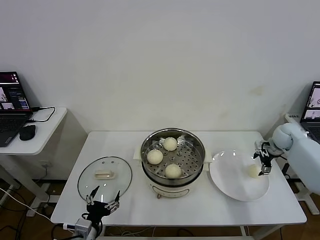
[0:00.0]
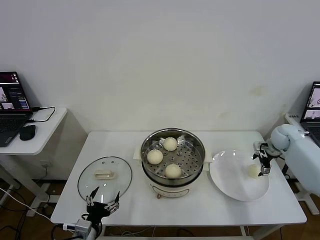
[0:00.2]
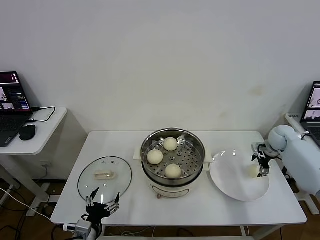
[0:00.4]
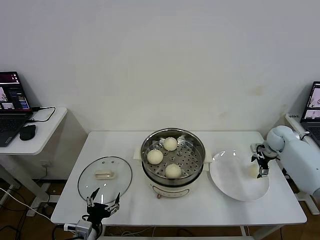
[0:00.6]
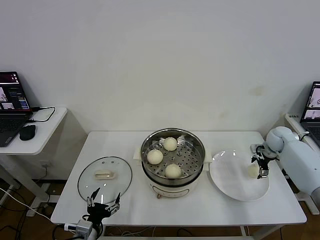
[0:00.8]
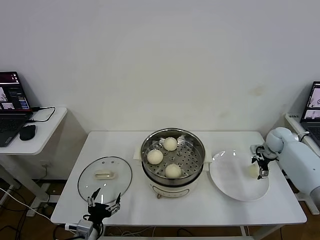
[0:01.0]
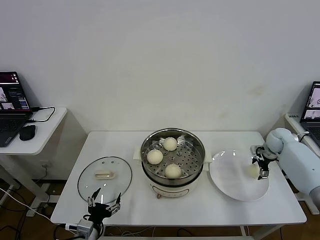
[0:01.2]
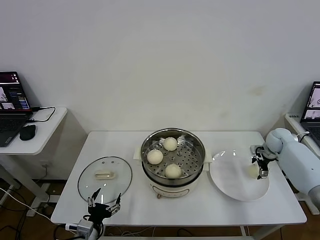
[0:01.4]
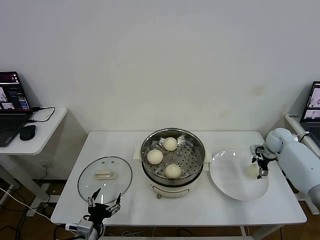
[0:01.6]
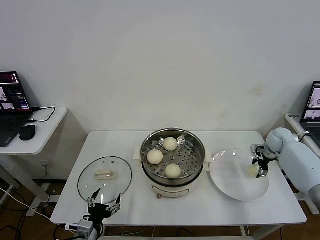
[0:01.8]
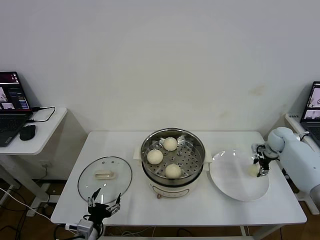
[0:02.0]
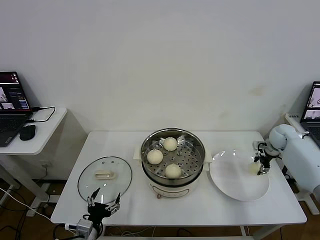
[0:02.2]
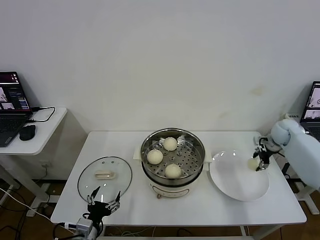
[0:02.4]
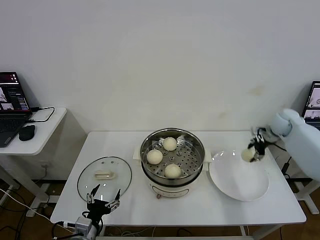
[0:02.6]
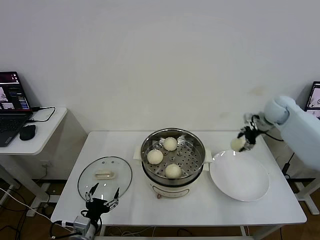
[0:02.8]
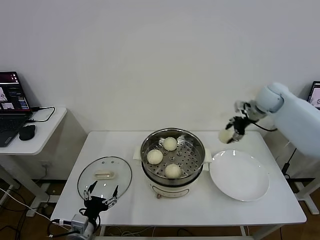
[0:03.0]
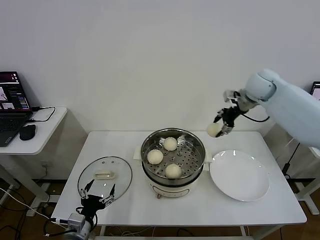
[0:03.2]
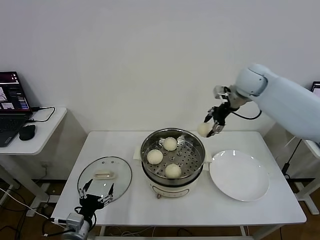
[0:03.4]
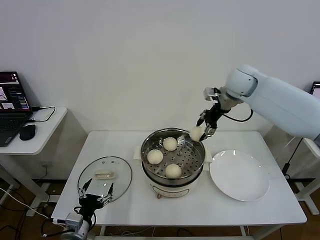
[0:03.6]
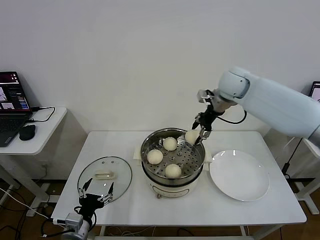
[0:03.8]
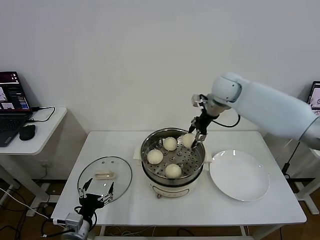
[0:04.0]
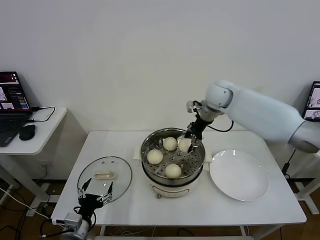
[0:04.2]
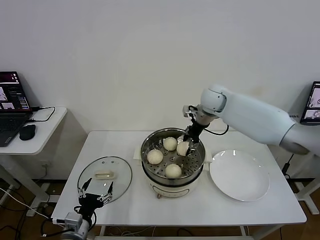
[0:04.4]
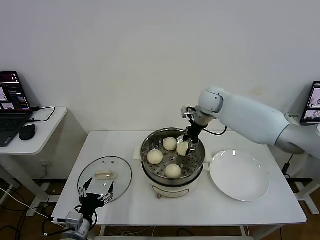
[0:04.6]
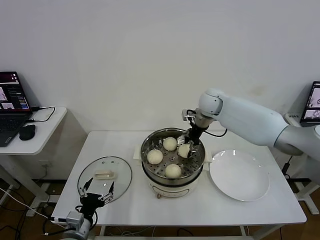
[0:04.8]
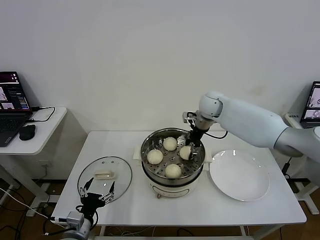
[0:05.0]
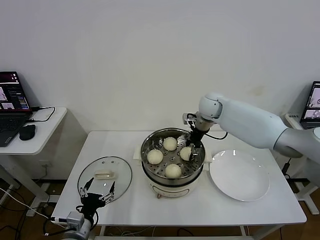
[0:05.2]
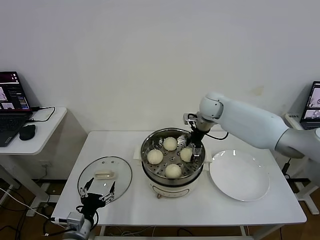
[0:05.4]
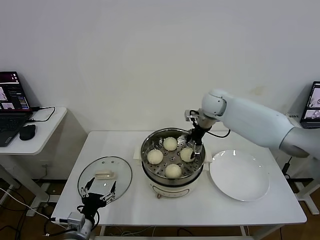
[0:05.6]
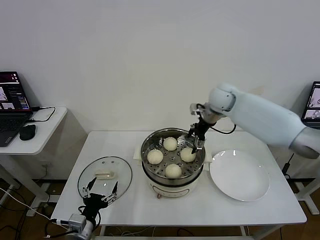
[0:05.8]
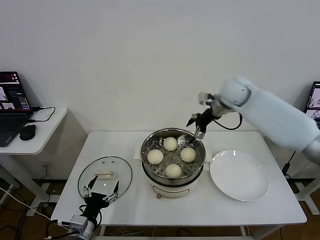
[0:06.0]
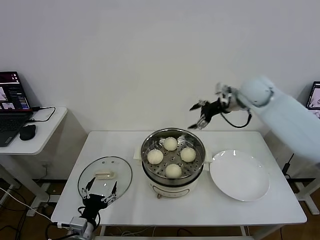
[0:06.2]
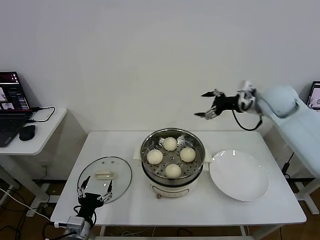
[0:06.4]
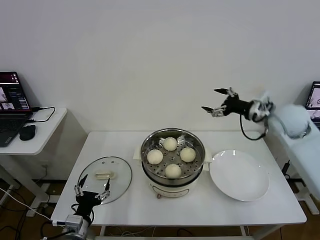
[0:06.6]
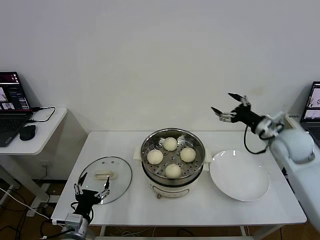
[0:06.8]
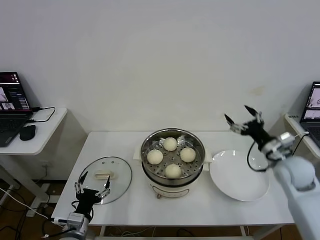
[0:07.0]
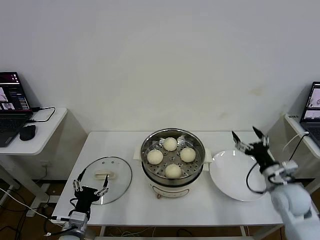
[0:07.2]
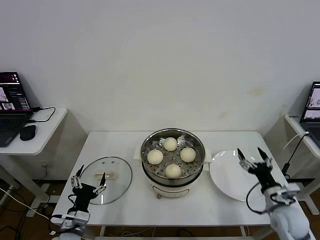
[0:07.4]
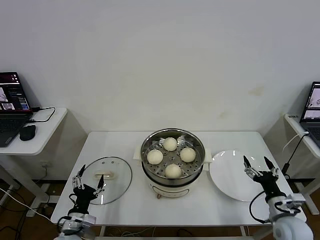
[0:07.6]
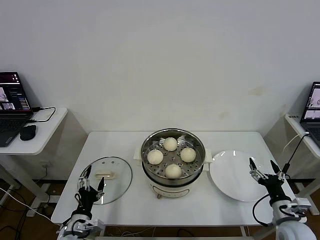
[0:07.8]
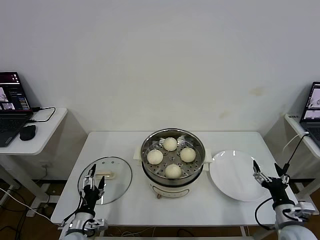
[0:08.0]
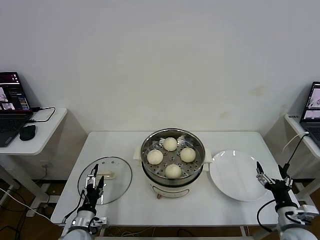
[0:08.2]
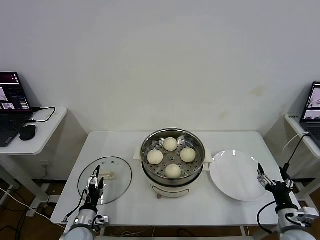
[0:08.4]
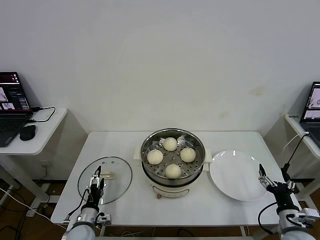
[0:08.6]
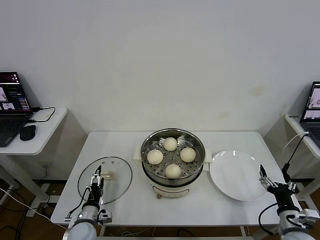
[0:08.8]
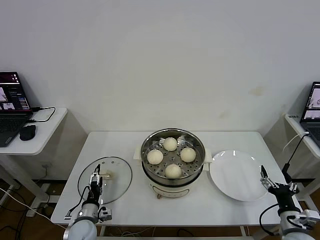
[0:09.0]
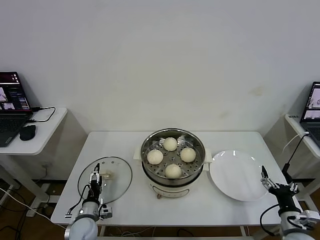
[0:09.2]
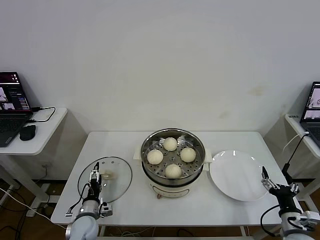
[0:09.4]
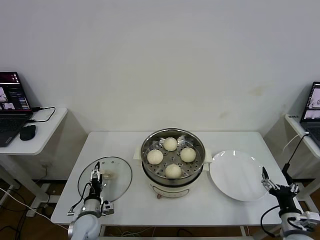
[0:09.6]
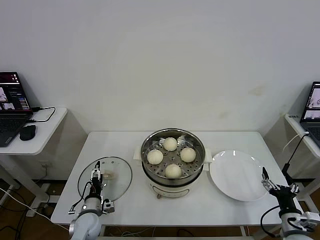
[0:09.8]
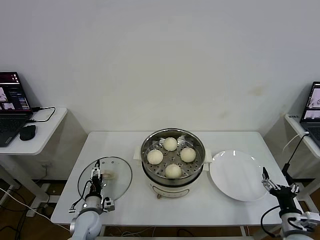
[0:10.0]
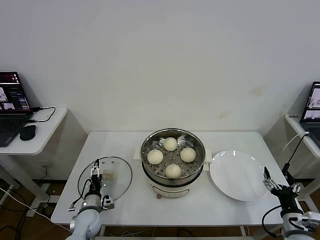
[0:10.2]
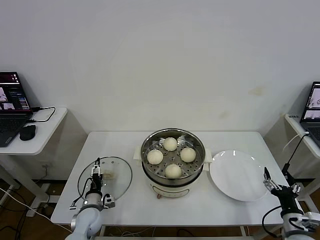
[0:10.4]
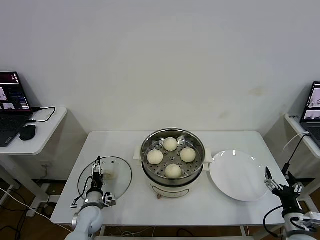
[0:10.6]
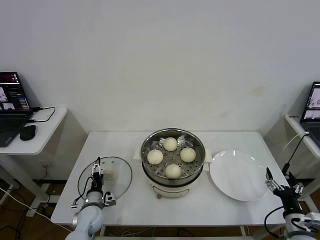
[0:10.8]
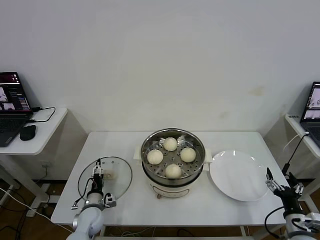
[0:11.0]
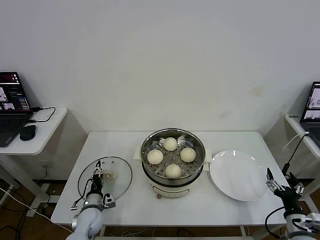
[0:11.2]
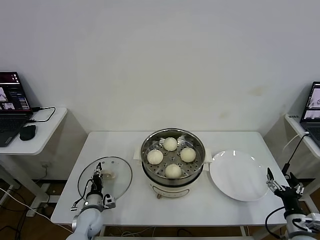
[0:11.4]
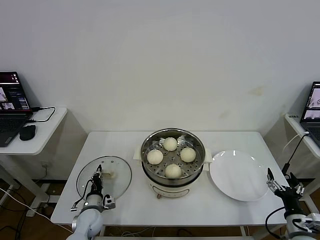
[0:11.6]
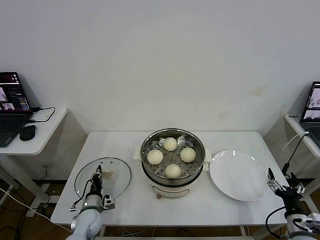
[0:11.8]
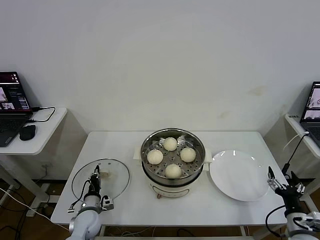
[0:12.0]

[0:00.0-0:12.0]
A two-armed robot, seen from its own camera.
Task of the whole recording: take steamed baozi put them in steamer then cover it.
Step, 0:00.0 to 0:02.0: Grasp the baozi in the plate with right gripper.
Step, 0:02.2 to 0:05.6: Place the baozi on the steamer with right gripper.
0:00.0 to 0:01.6: The grippers stay close to where they were, moving slightly.
0:01.6 to 0:03.0: The right gripper travels upward and to the left by approximately 25 cm, and closes up.
0:03.0 to 0:04.4: The right gripper shifts approximately 20 cm to the left.
0:04.4 to 0:06.0: The right gripper moves to the right, about 5 cm, and opens its fingers.
0:06.0 to 0:07.6: The right gripper travels backward, downward and to the right by approximately 50 cm.
0:07.6 to 0:09.0: The left gripper travels downward and forward by roughly 10 cm.
0:09.0 to 0:10.4: The grippers make only small movements.
0:10.4 to 0:12.0: The left gripper closes.

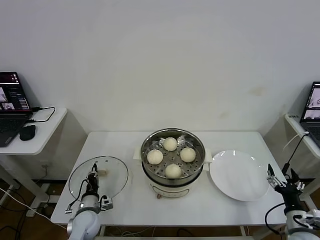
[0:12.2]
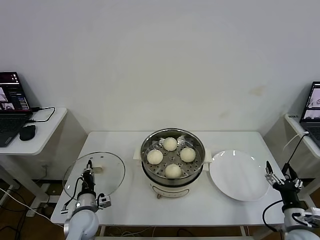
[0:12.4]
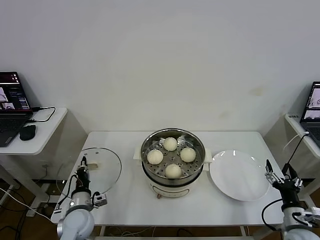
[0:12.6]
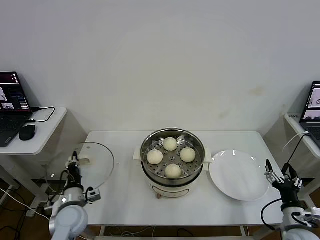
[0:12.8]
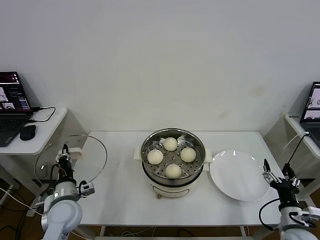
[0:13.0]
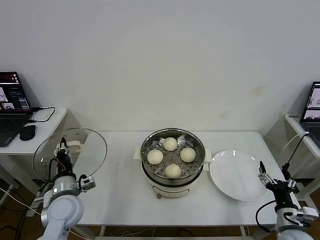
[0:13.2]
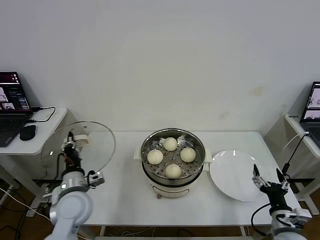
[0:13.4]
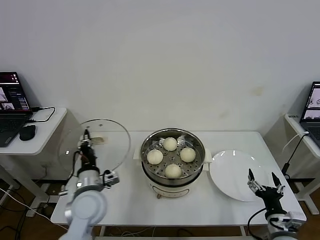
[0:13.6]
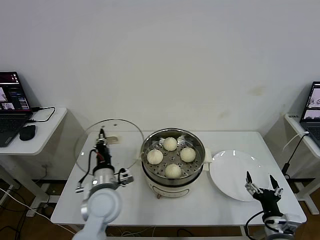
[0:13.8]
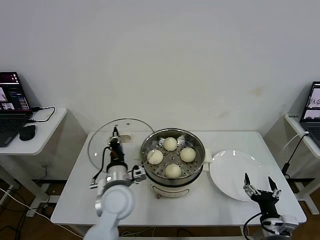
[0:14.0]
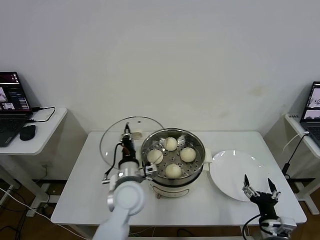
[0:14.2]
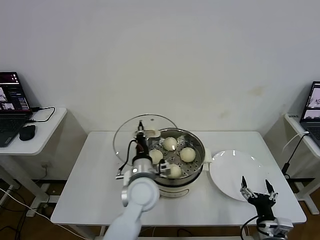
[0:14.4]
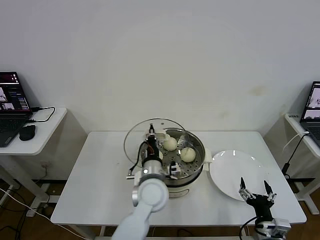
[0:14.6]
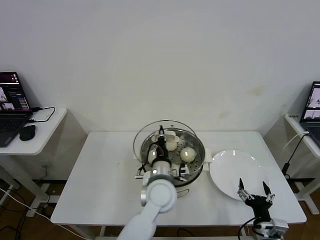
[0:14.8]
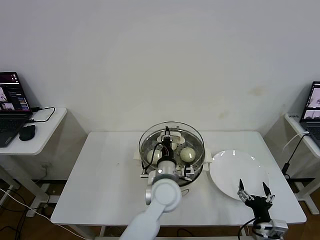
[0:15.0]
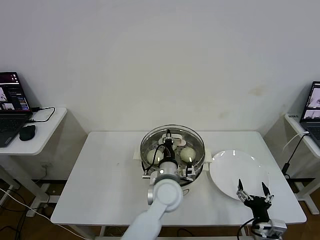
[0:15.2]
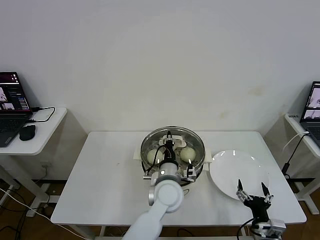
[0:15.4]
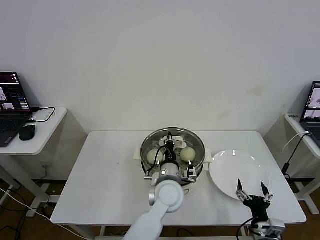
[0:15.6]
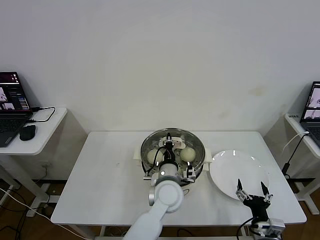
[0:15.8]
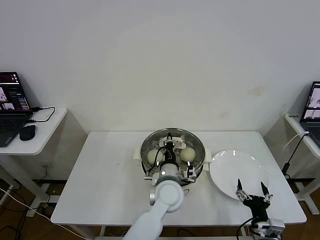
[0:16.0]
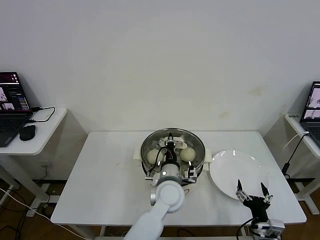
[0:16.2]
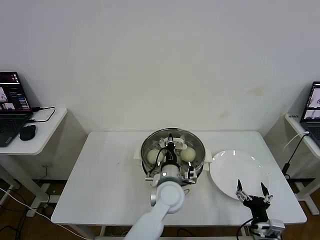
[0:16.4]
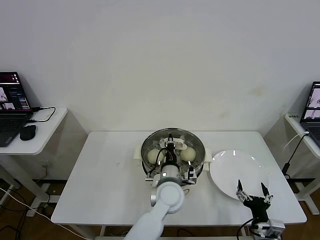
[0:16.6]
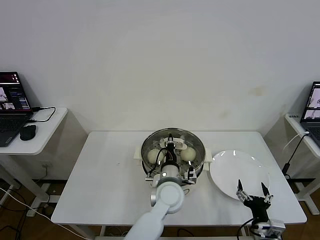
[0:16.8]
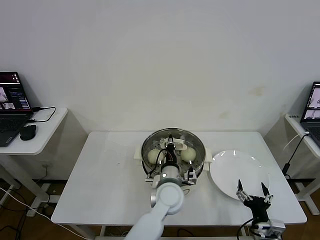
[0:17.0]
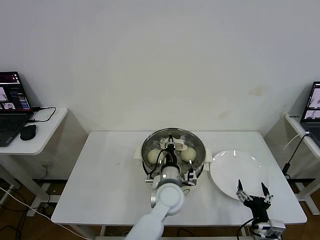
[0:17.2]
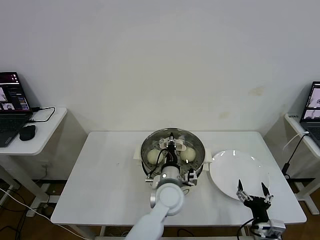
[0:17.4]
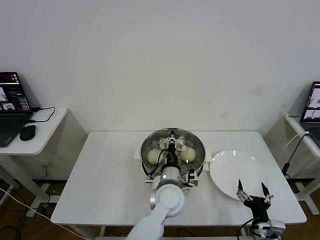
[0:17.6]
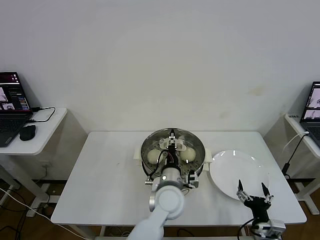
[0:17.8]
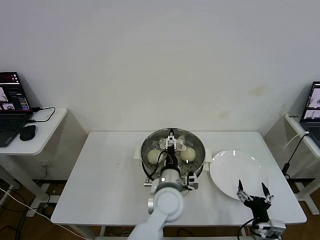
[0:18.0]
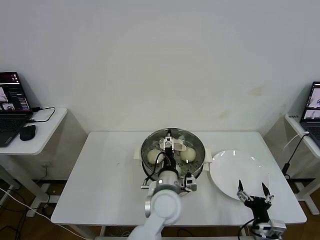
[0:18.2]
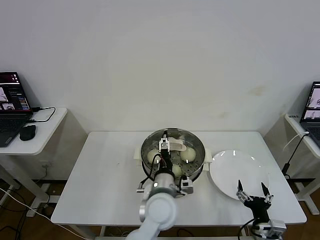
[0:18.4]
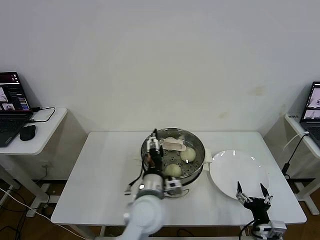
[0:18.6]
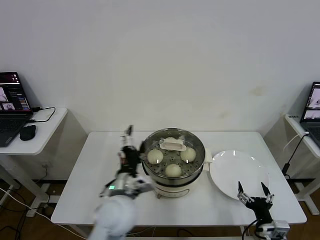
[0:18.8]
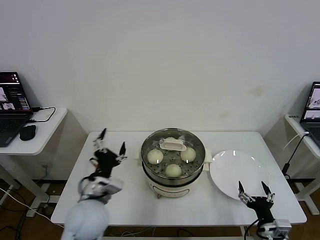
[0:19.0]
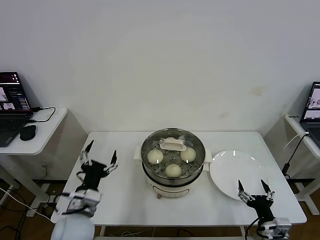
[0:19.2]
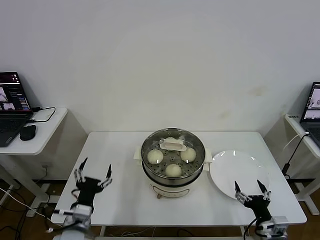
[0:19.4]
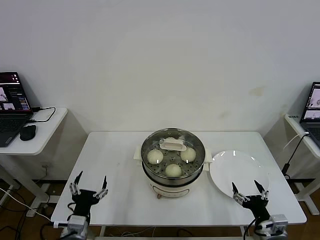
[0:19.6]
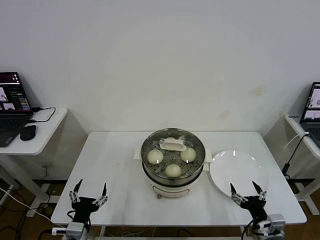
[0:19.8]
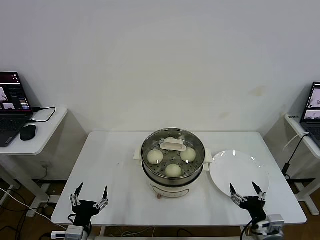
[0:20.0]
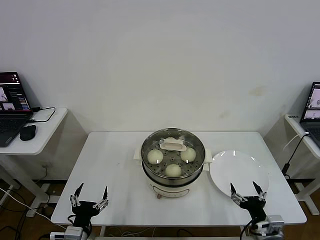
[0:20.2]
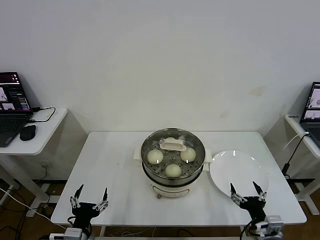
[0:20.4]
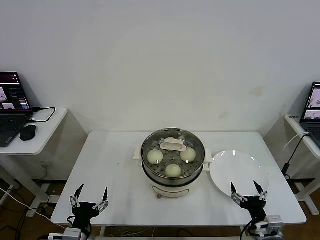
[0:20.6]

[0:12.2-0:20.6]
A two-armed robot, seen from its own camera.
Task of the whole recording: take steamed baozi put them in steamer then cover it.
Step, 0:12.2 to 0:17.8: Place the pot lid on the steamer with left gripper.
0:12.2 to 0:13.6: The right gripper is displaced to the left by about 5 cm. The left gripper moves upward, roughly 20 cm.
0:13.6 to 0:15.0: The left gripper shifts approximately 25 cm to the right.
0:15.0 to 0:16.4: The grippers make only small movements.
0:16.4 to 0:17.8: The left gripper opens.
0:17.8 to 0:19.2: The left gripper moves to the left, roughly 25 cm, and opens up.
0:19.2 to 0:20.6: The left gripper moves backward and downward, about 15 cm.
